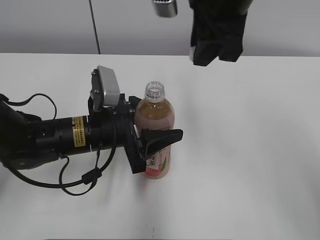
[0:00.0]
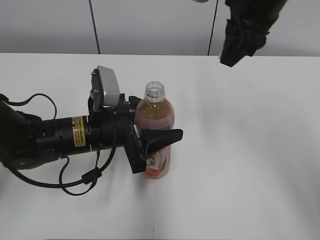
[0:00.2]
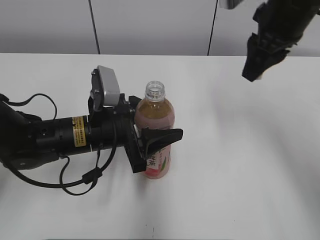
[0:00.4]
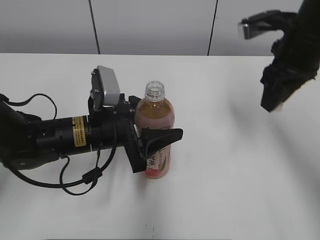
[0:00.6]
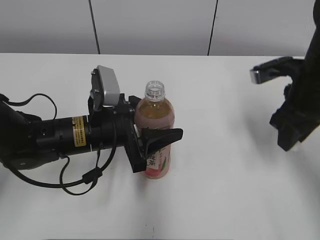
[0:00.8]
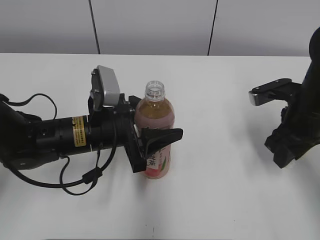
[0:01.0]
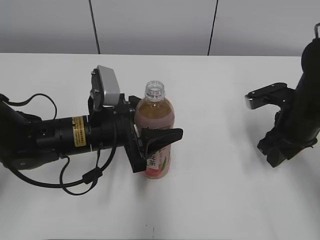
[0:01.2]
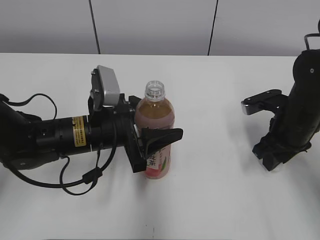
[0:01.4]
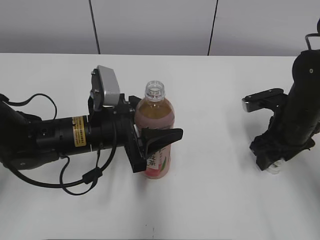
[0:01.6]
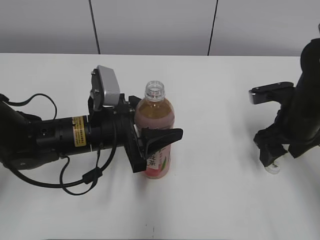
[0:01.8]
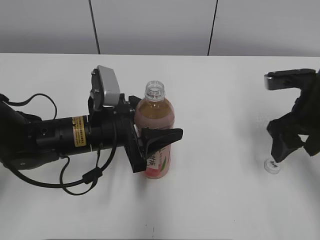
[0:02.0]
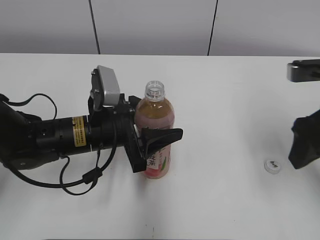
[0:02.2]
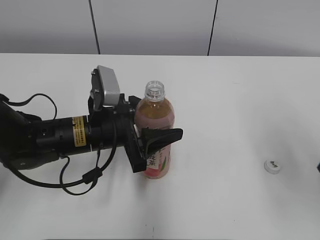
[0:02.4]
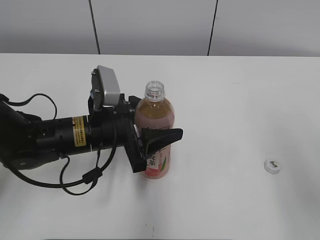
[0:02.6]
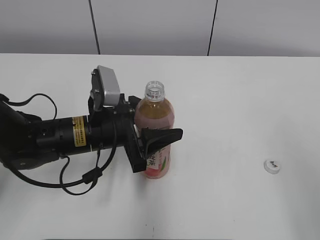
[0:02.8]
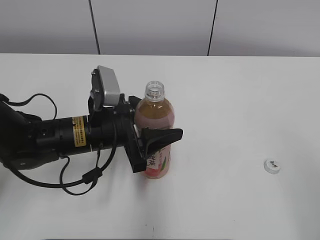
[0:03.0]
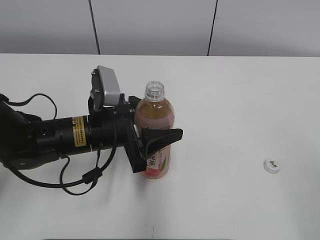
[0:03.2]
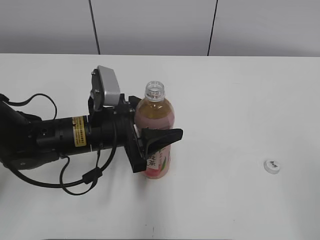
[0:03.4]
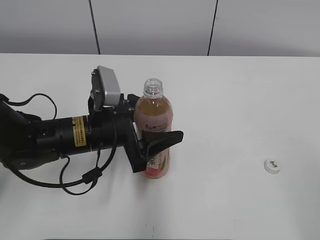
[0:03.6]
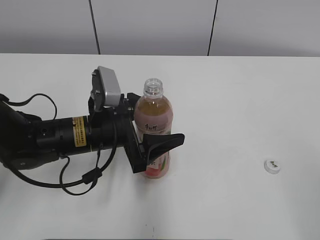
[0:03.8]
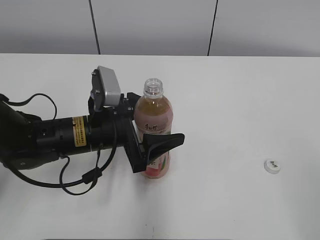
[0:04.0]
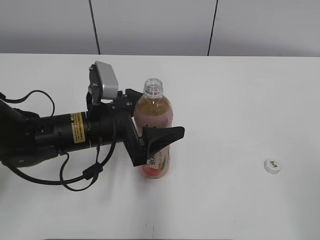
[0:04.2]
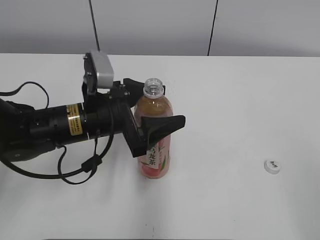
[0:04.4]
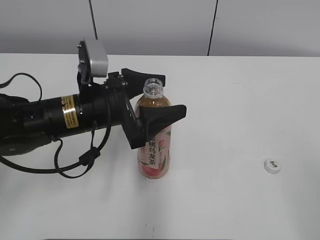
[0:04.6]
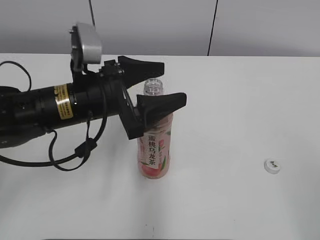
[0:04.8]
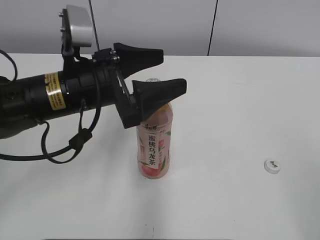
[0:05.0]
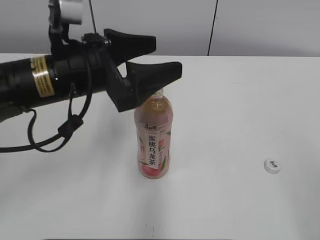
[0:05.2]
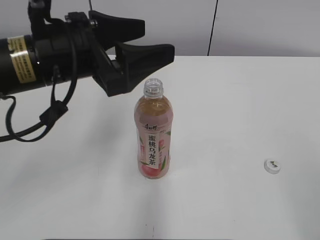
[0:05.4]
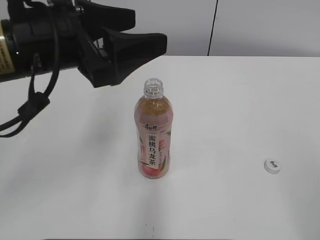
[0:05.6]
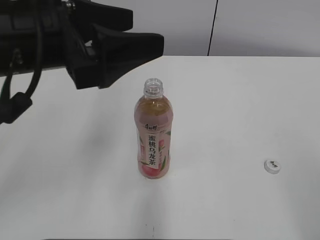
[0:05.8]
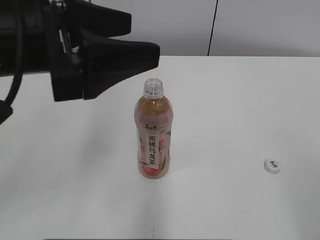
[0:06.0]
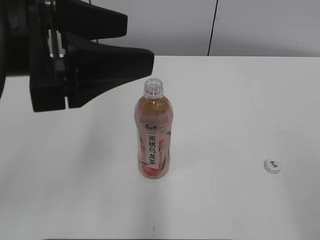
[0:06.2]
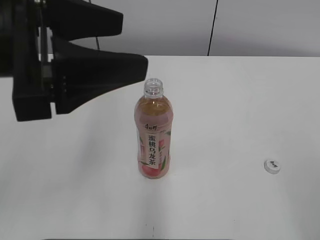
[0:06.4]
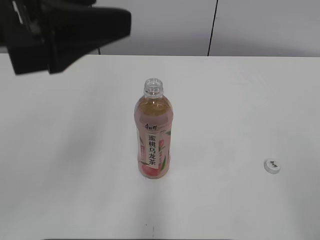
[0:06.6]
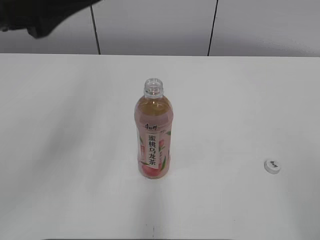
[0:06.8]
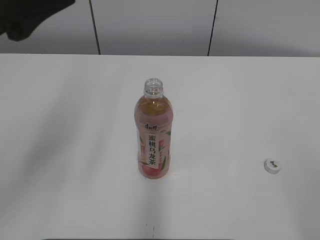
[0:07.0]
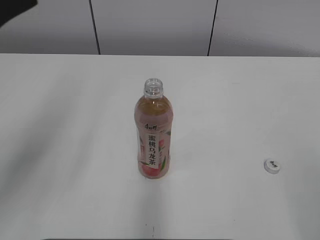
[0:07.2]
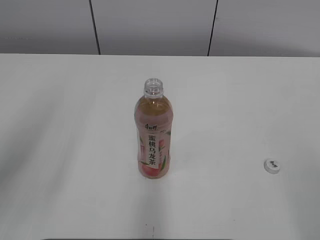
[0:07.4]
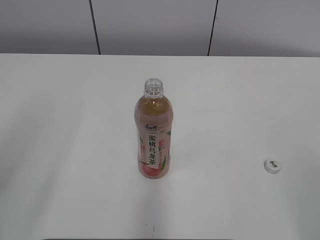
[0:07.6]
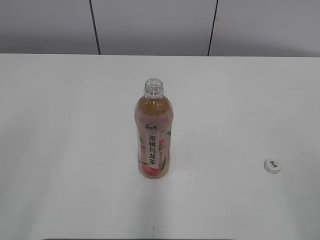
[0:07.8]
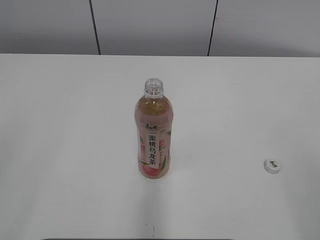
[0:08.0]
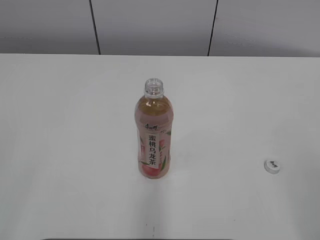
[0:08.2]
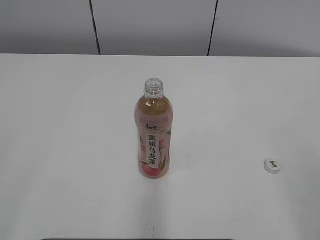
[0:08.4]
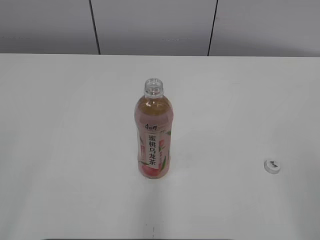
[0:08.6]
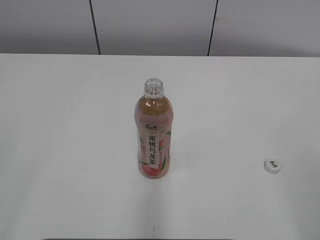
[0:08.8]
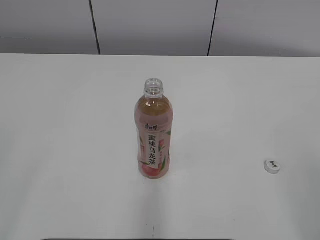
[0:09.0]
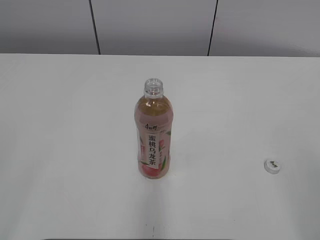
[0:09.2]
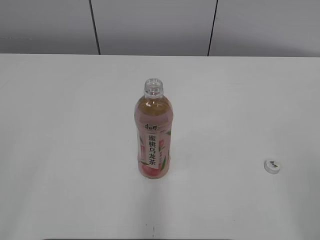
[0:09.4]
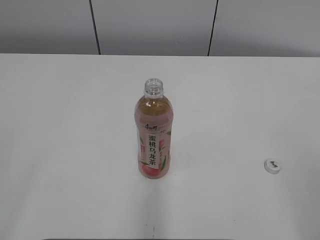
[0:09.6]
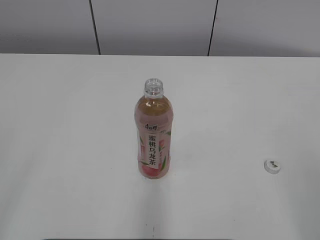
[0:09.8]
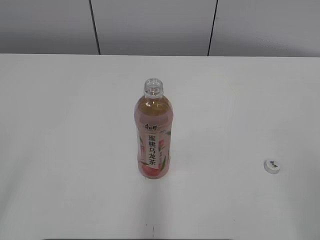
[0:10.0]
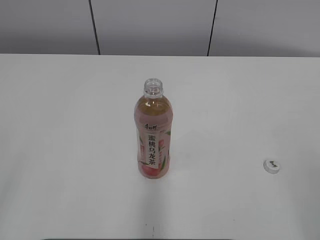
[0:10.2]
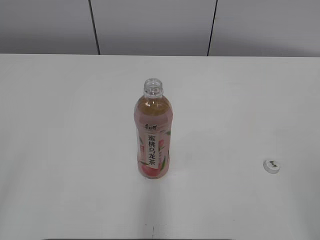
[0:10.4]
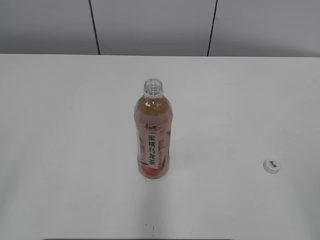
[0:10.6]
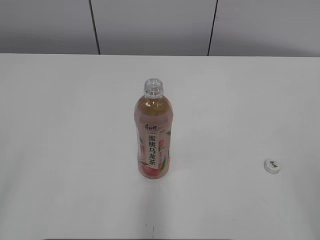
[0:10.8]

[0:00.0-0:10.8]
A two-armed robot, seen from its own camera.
Step, 0:00.0 to 0:01.8: Place the bottle cap on the table with the right gripper.
0:00.0 to 0:01.6: The right gripper shifts about 25 cm downward and to the right, and opens its fingers.
0:01.6 to 0:03.0: The right gripper moves backward and upward, about 30 cm.
0:03.0 to 0:04.6: The left gripper opens up.
0:04.6 to 0:06.2: The left gripper moves upward and backward, about 15 cm.
0:06.2 to 0:07.8: The left gripper heads backward and to the left, covering approximately 20 cm.

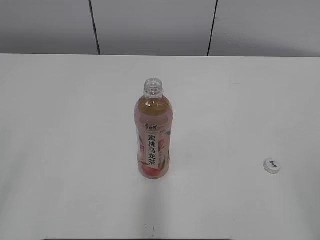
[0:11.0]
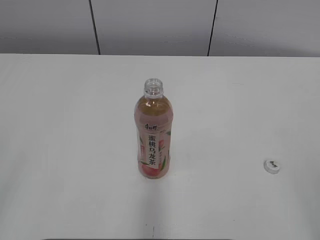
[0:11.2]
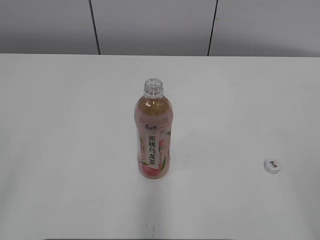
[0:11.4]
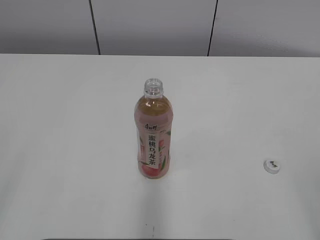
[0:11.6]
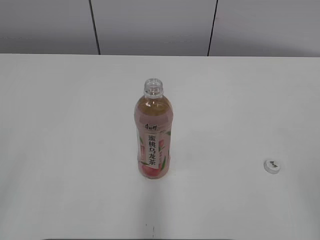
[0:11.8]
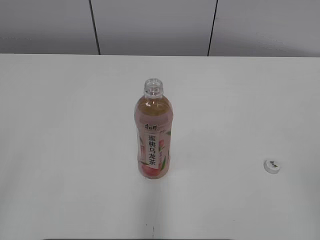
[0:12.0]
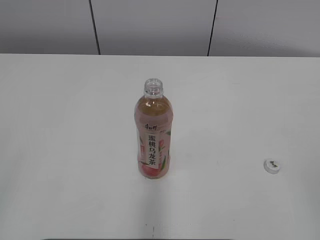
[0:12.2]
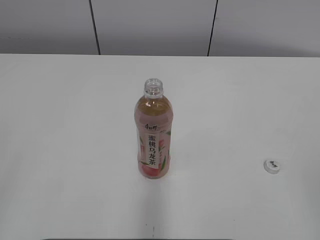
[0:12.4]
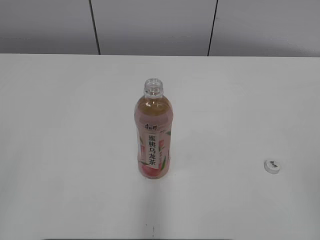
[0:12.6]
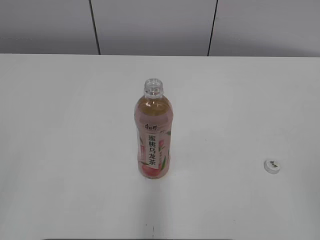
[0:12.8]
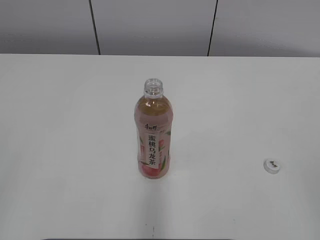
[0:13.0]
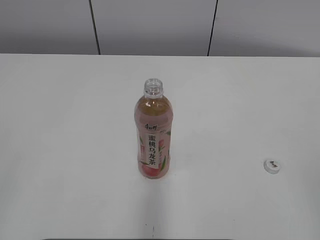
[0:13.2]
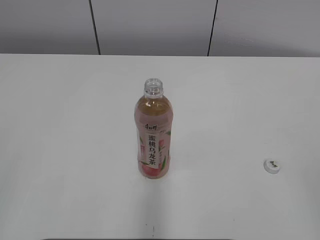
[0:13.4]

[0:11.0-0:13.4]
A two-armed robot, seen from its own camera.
0:12.2 to 0:13.4: The two grippers keep their place.

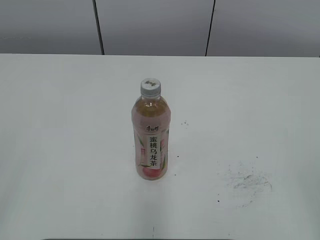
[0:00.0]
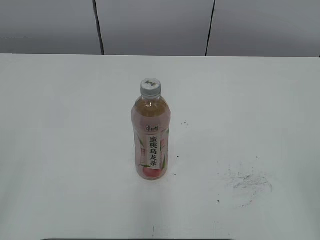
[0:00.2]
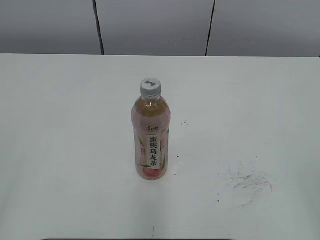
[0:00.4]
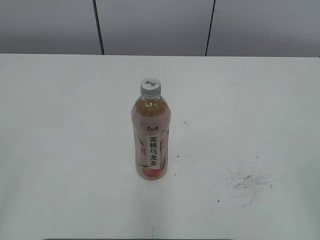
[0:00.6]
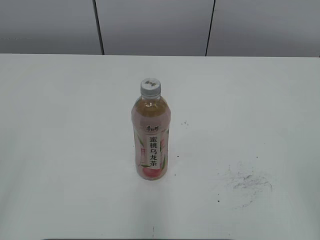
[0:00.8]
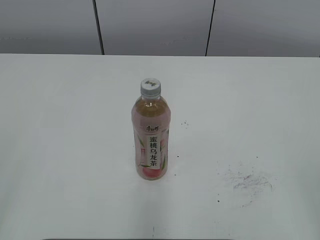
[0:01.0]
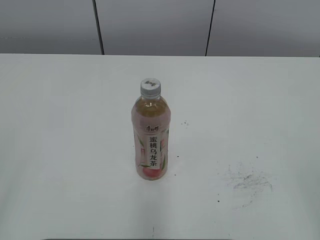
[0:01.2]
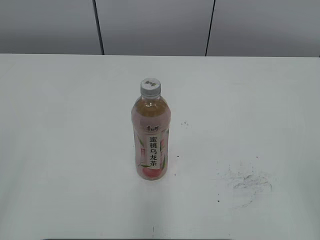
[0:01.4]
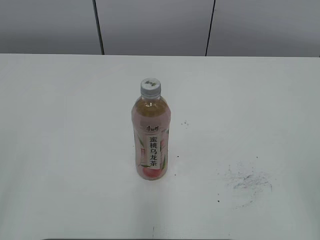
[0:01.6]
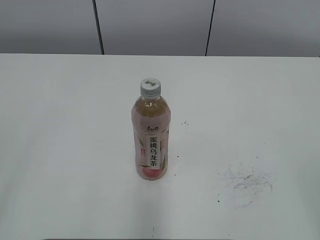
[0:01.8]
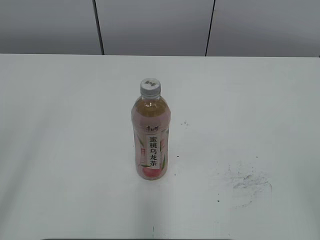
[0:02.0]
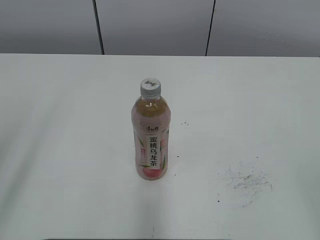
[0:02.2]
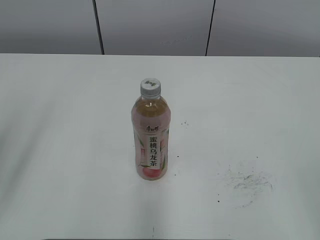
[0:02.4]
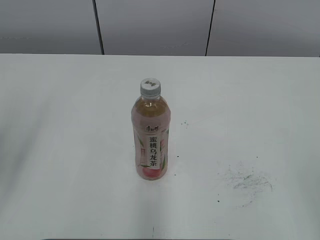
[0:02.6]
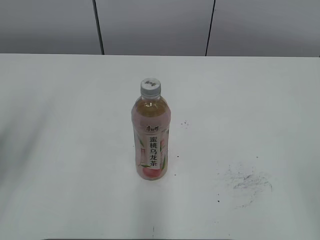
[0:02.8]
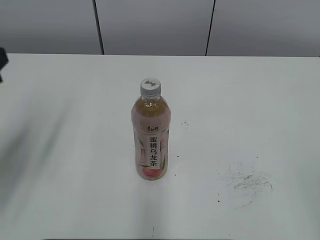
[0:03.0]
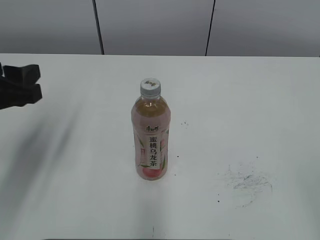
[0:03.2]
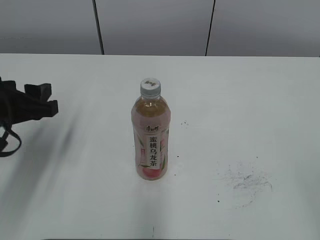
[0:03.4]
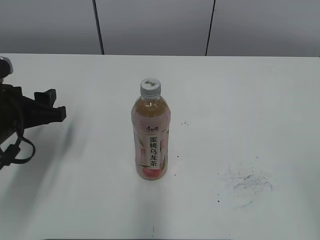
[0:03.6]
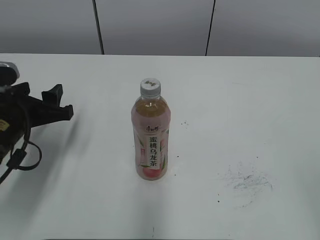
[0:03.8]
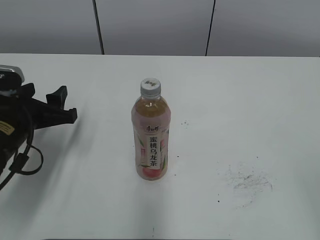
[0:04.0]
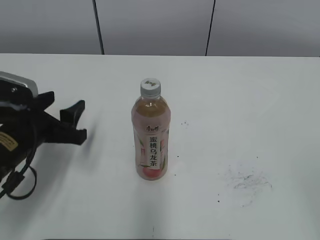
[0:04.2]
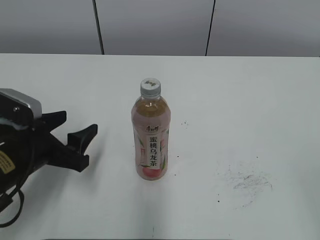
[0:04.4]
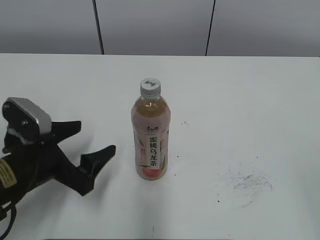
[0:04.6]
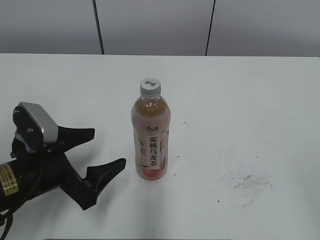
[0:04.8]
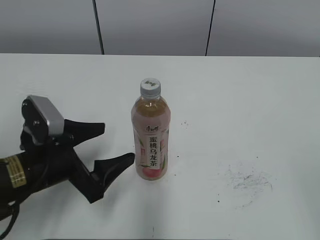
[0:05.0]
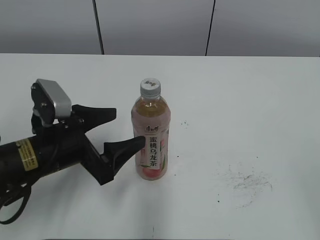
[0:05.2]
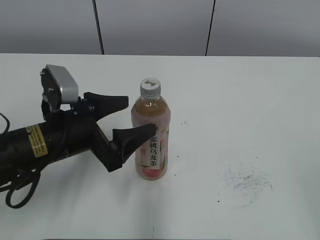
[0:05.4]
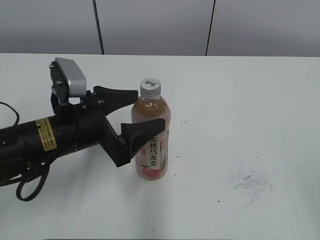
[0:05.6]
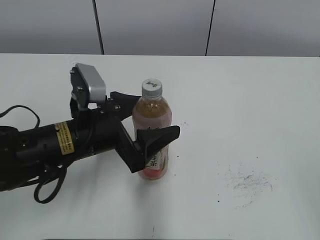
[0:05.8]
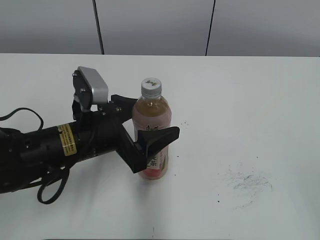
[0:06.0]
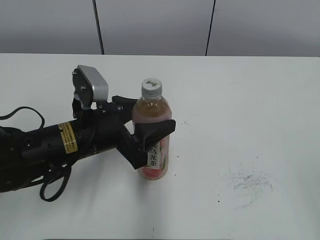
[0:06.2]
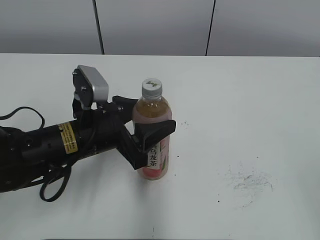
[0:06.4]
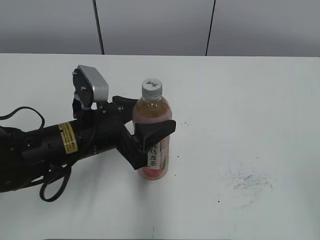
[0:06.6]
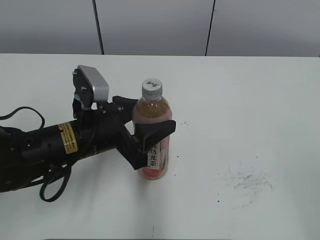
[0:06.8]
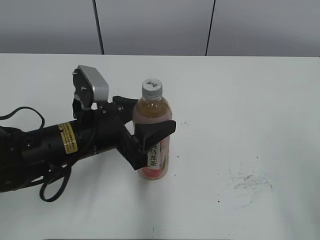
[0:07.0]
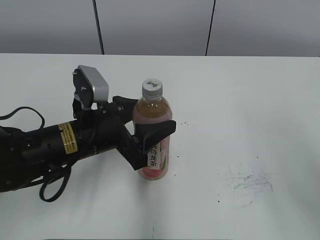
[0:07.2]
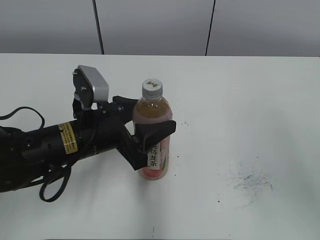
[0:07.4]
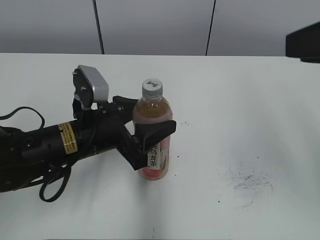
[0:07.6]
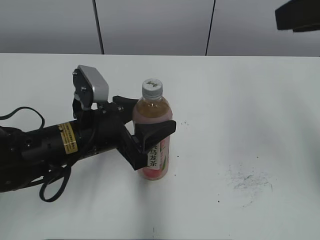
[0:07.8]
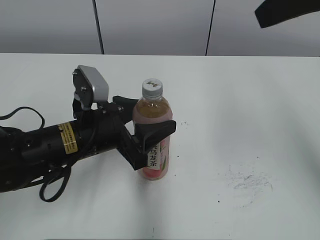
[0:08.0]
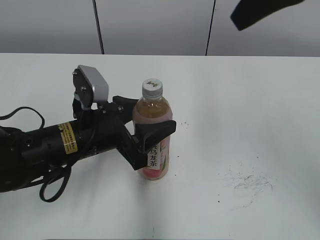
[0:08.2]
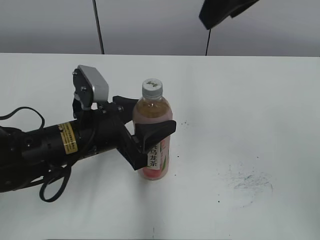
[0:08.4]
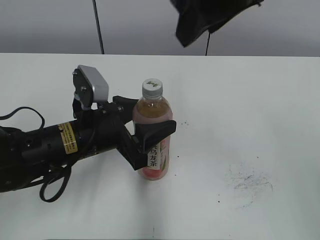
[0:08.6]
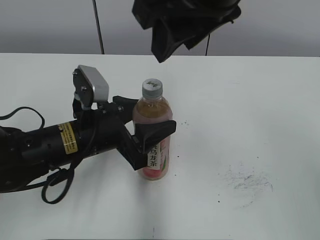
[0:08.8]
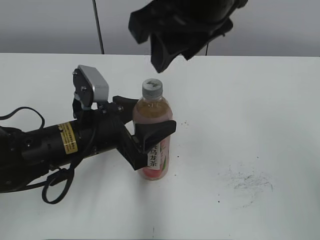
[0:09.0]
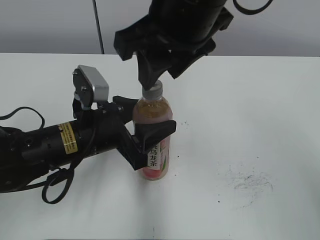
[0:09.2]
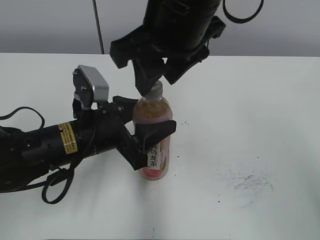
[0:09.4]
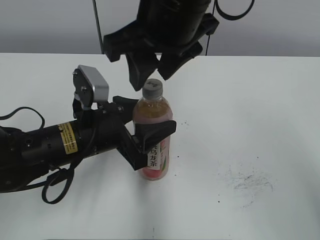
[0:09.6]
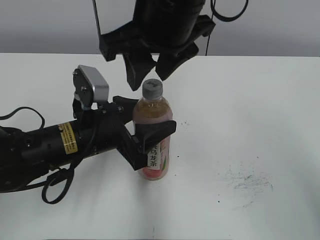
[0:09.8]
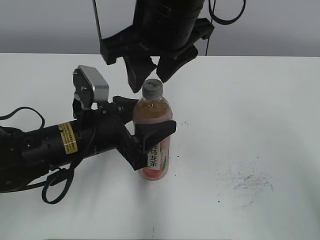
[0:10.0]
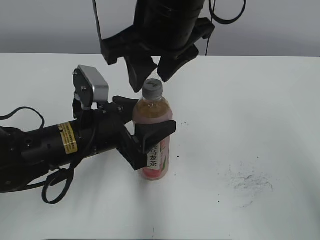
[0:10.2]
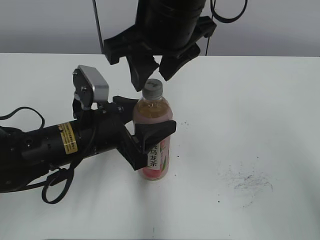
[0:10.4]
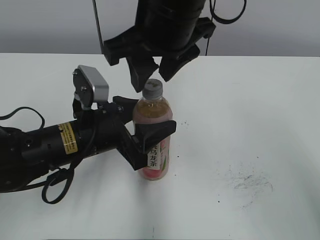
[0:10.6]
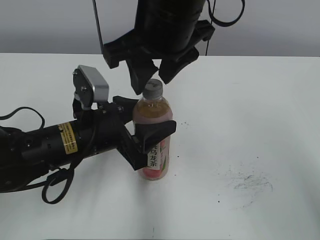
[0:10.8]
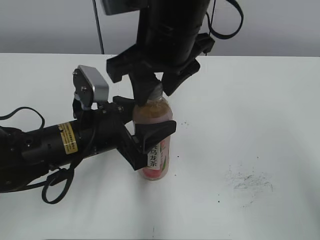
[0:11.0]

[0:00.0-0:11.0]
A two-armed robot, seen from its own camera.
Step, 0:00.0 to 0:06.2: Grab the Peach Oolong Tea with the left hand.
0:01.6 to 0:03.2: The left gripper goes some 20 cm forward.
0:03.2 to 0:04.8: The left gripper is displaced downward and to the right by some 15 cm, and opens.
0:04.8 to 0:06.2: The left gripper travels to the right and forward by approximately 10 cm, and closes its fingers.
0:06.2 to 0:07.8: The right gripper moves forward and upward, approximately 25 cm.
0:07.8 to 0:09.4: The right gripper shifts roughly 20 cm to the left.
0:09.4 to 0:11.0: The grippers stay close to where they were, moving slightly.
